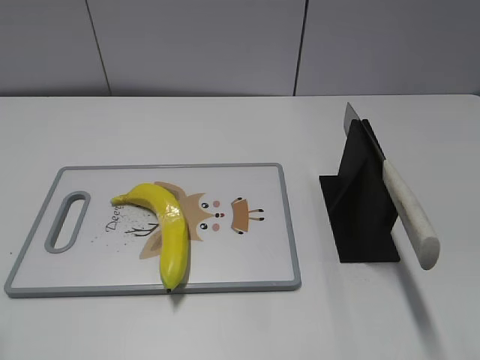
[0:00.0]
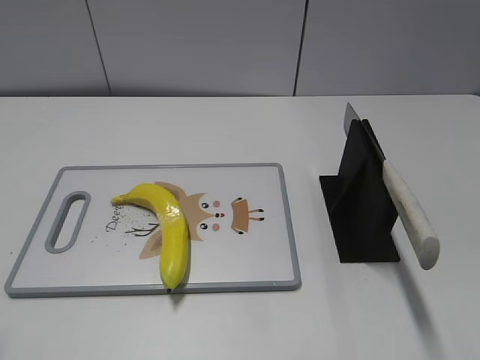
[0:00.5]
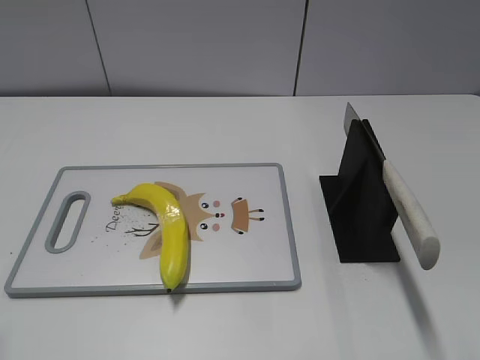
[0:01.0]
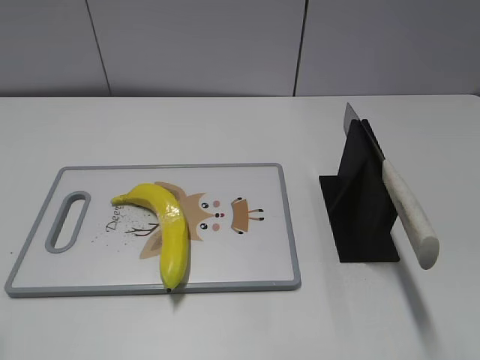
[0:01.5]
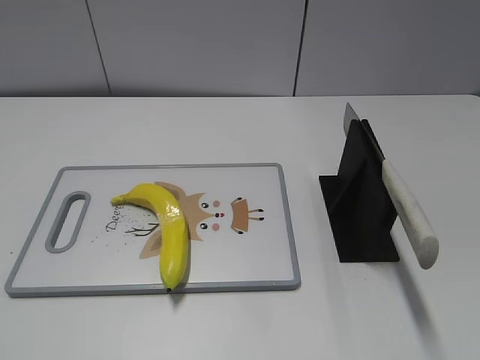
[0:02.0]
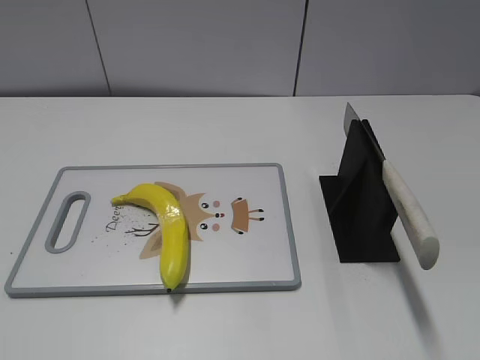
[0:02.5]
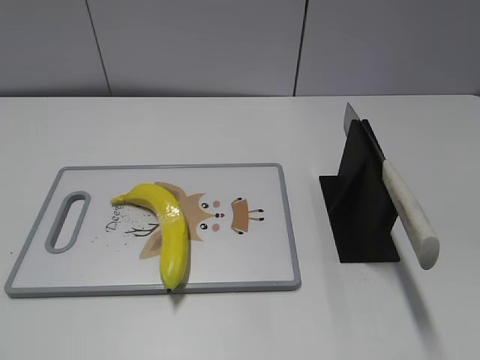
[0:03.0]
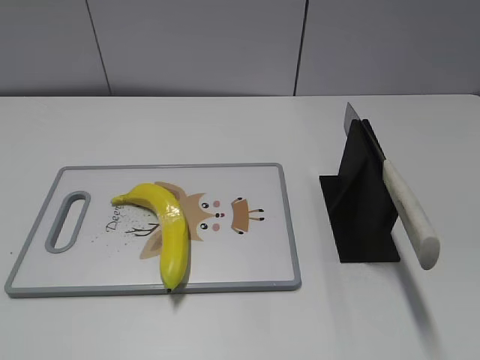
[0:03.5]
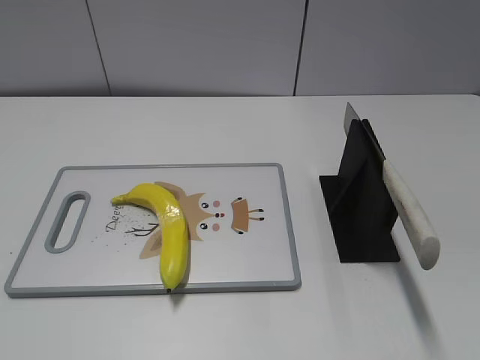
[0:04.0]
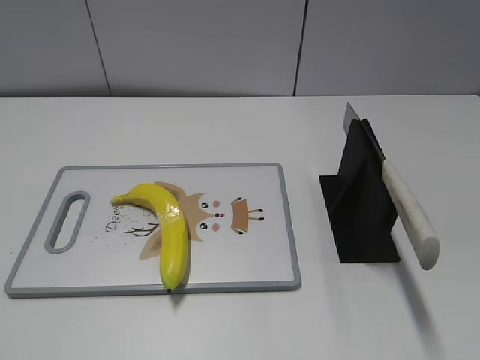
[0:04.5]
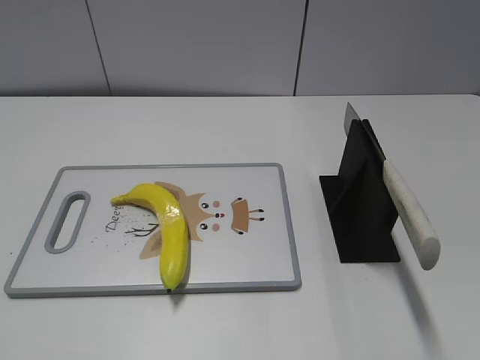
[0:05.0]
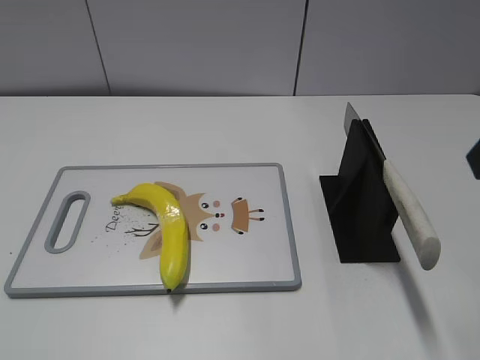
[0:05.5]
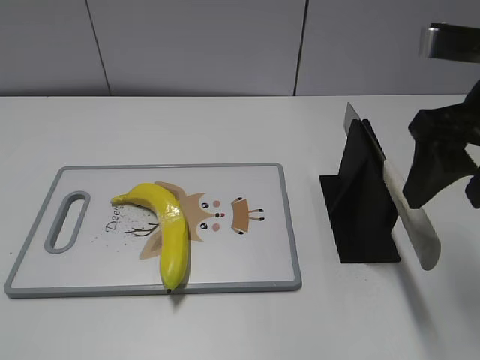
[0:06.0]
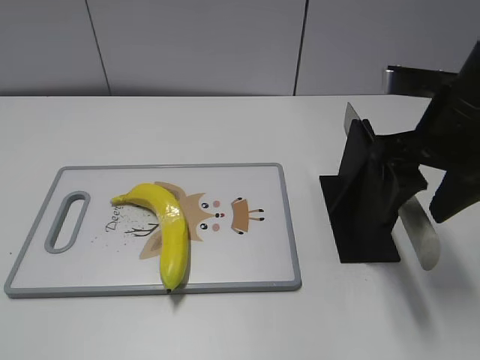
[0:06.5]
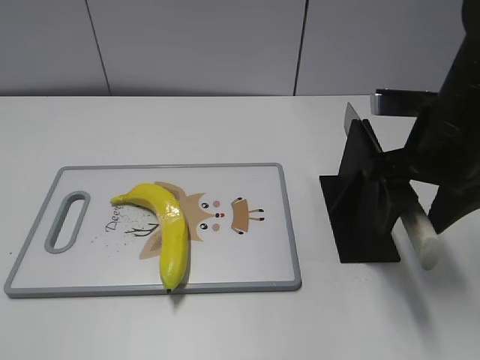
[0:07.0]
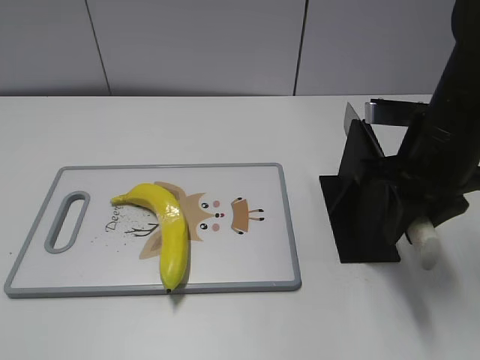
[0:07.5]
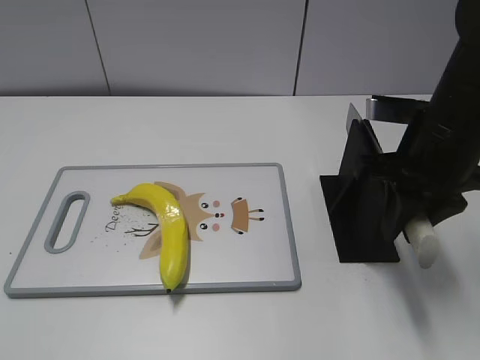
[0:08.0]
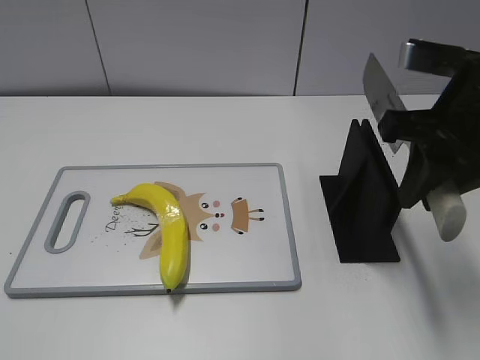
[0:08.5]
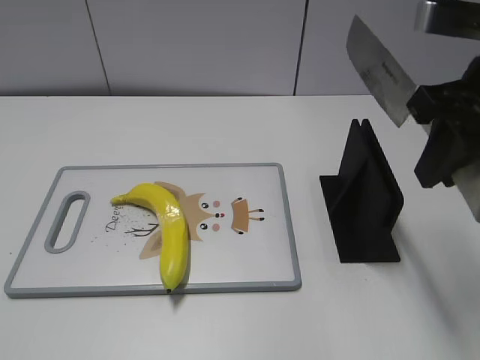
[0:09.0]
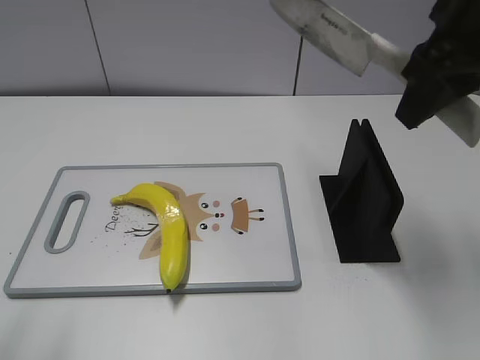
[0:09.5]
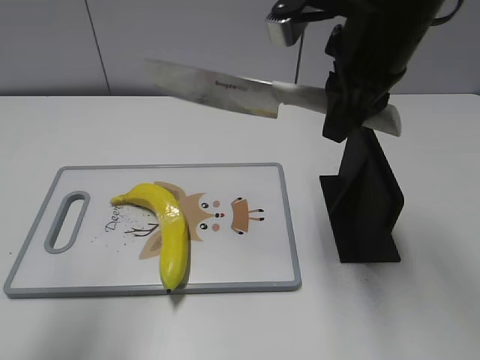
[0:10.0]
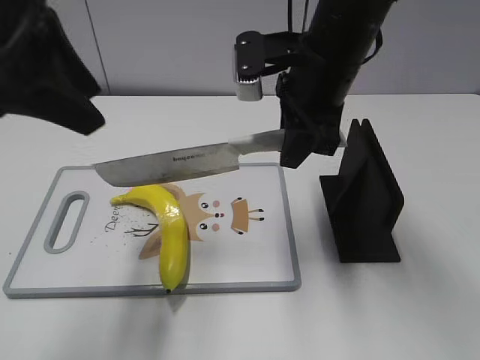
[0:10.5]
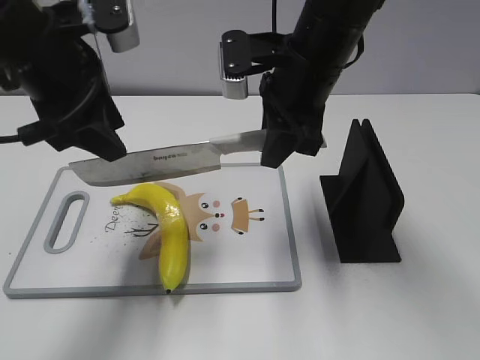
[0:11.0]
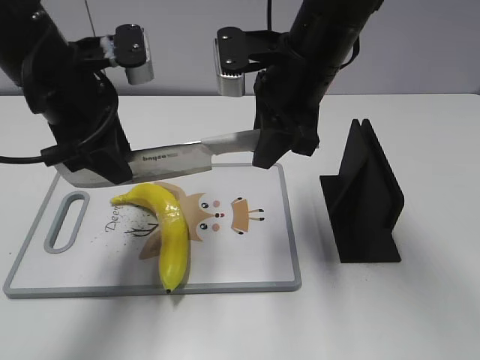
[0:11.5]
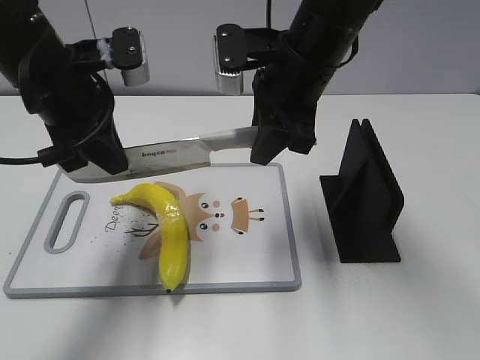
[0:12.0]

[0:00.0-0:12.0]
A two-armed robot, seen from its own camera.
Task of the whole recording: cut plastic banana.
Step, 0:00.0 to 0:09.5: Grab the knife handle with your right hand.
0:04.0 to 0:06.0: The right gripper goes approximately 25 cm forward and to the left, and opens its fingers.
0:06.0 to 0:08.0: The right gripper travels downward by some 10 cm, and closes.
0:08.0 to 0:10.0: The left gripper heads forward and upward, covering about 20 cm; the right gripper moves upward and to the left, about 10 cm.
0:10.0 to 0:12.0: The left gripper travels forward, downward and to the right by some 20 cm, and closes its fingers. The right gripper travels downward and to the left by about 10 cm.

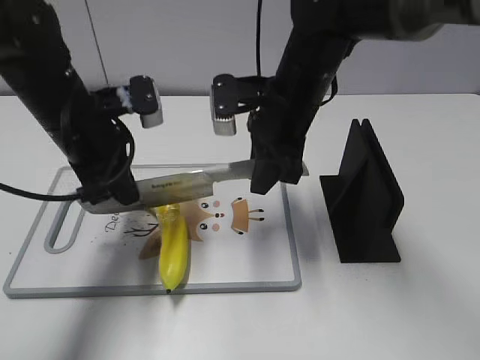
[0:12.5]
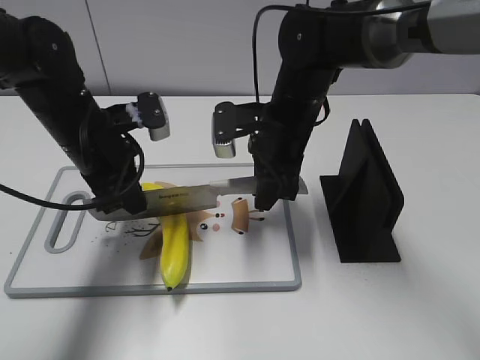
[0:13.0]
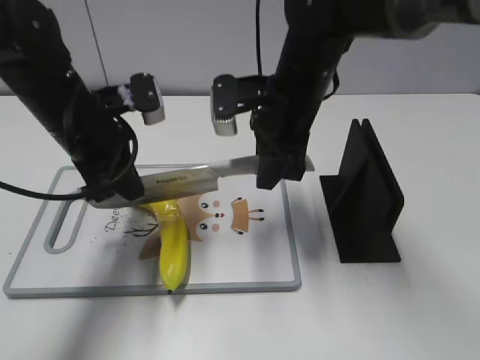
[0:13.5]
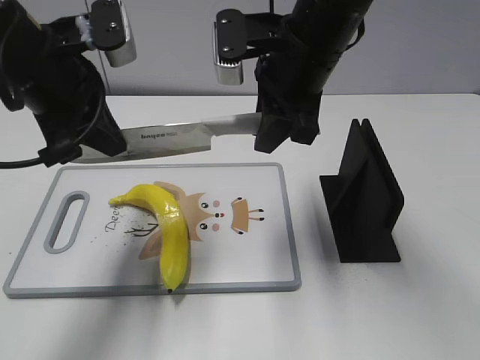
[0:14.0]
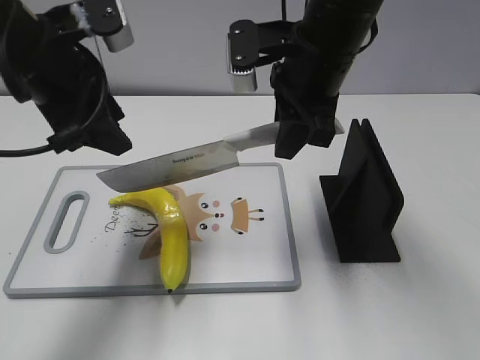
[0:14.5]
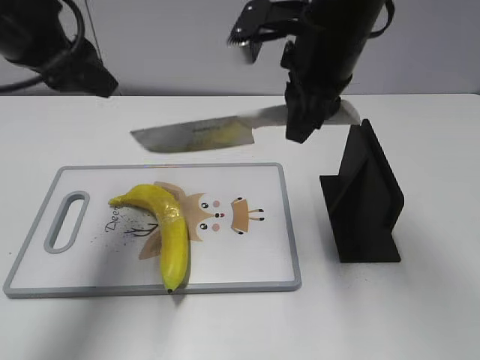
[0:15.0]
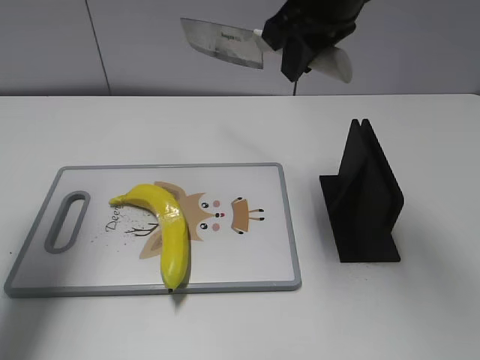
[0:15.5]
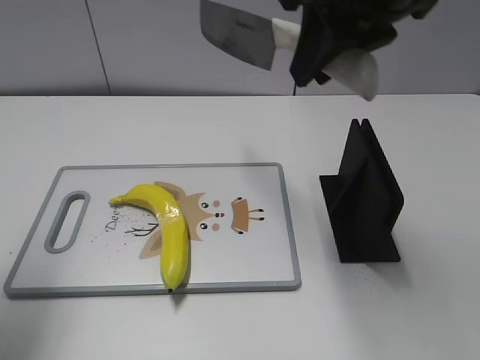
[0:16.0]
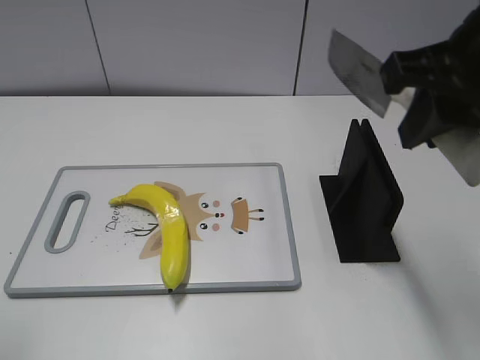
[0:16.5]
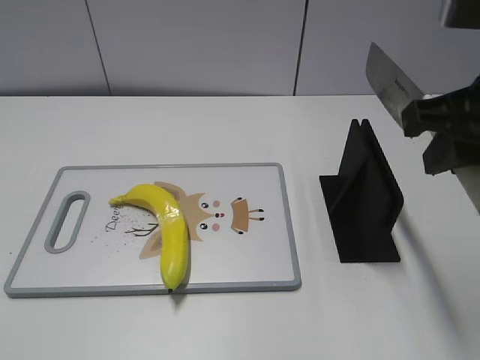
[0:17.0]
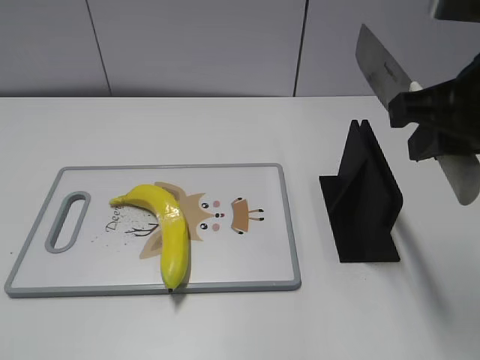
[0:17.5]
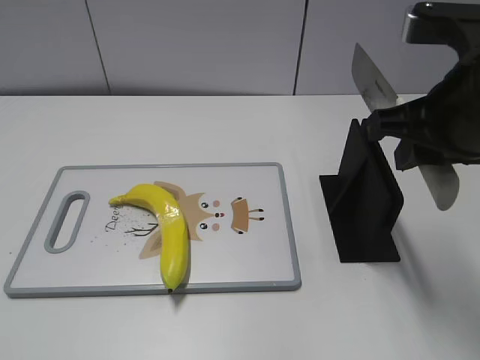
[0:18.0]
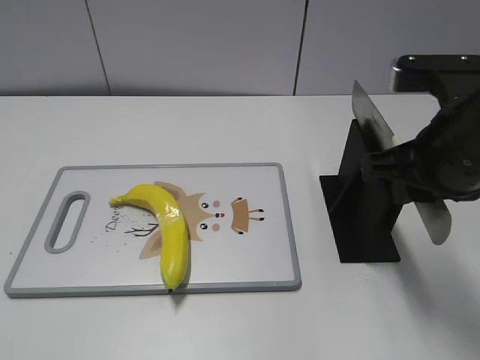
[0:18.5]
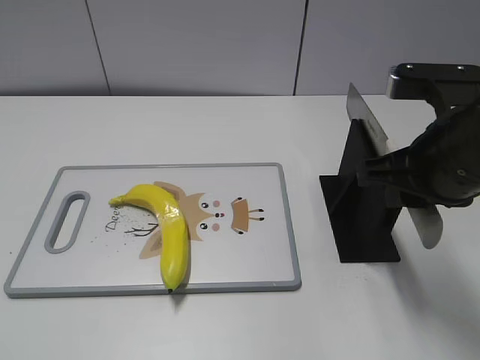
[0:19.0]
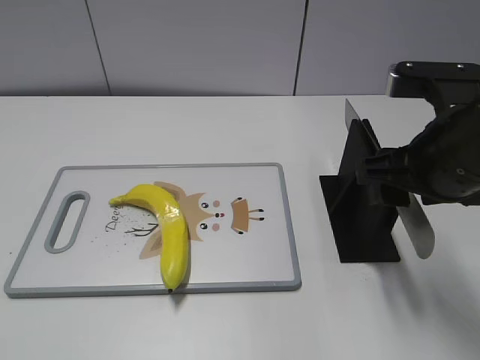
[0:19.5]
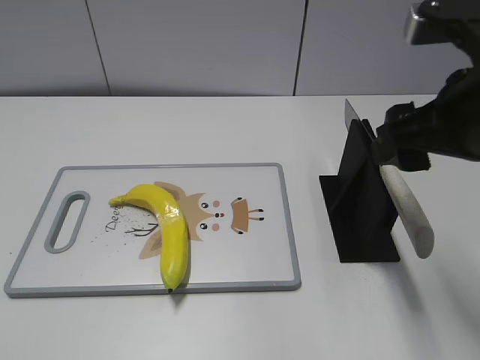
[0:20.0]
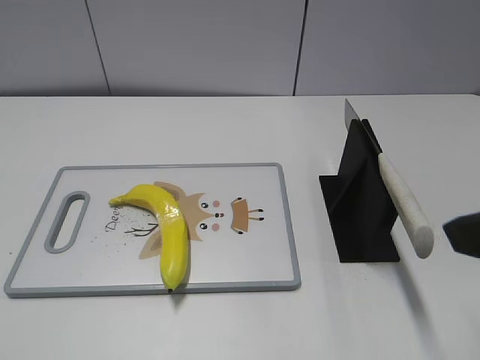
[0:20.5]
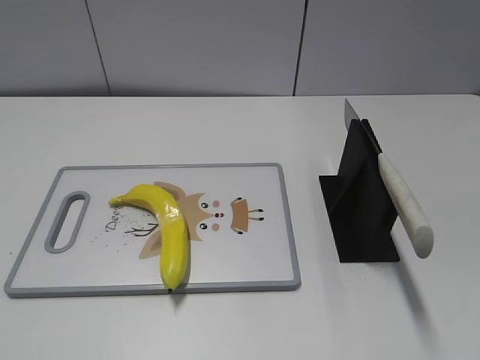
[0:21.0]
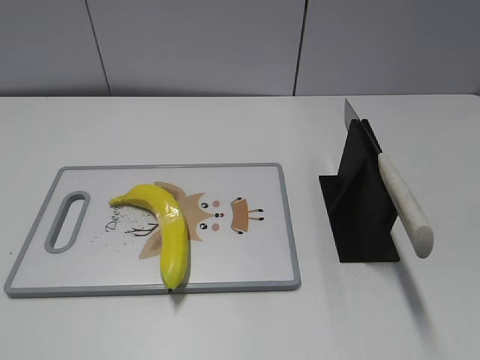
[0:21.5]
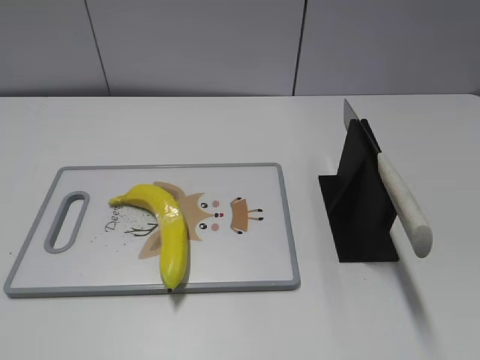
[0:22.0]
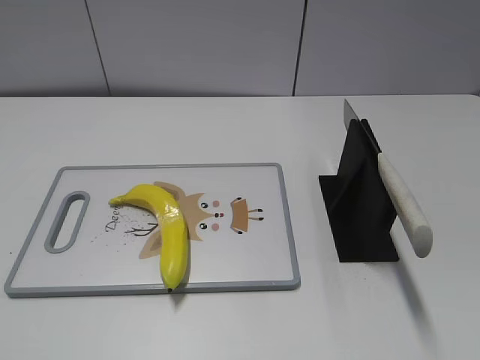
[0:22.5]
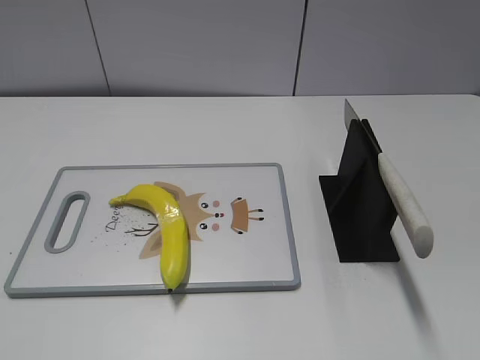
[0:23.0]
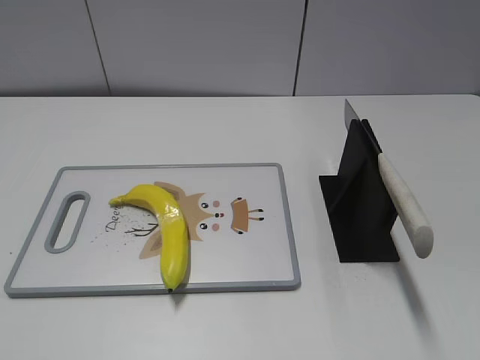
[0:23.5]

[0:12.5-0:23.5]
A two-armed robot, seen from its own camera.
Task of the whole recording: cut plastic banana.
Step, 0:12.5 to 0:14.5: Lift the knife with your right hand.
Step, 0:15.0 to 0:15.5: Cut the banana with your right hand.
Step, 0:16.5 to 0:17.5: Lift the knife with your right hand.
Step, 0:18.0 to 0:23.5: Place the knife on the storage rack with your right hand.
0:12.5 to 0:14.5: Both grippers move upward, approximately 5 cm. The left gripper opens.
0:14.5 to 0:16.0: The right gripper shifts about 10 cm upward and backward, while the left gripper shifts some 15 cm to the left, backward and upward.
0:16.0 to 0:18.0: The right gripper heads downward, to the right and backward, covering about 15 cm; the left gripper goes approximately 25 cm backward.
0:18.0 to 0:20.0: The right gripper opens up.
0:20.0 to 0:21.5: The right gripper heads backward and to the right, covering about 20 cm.
